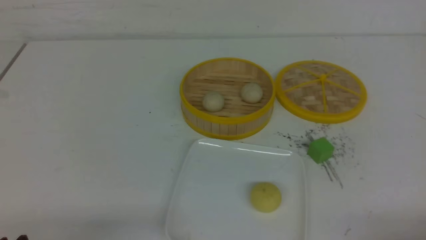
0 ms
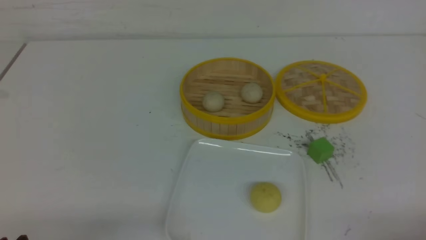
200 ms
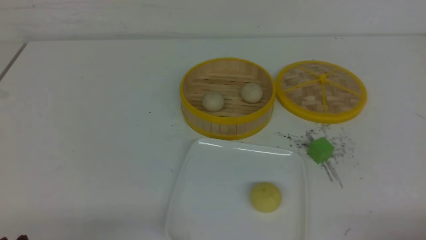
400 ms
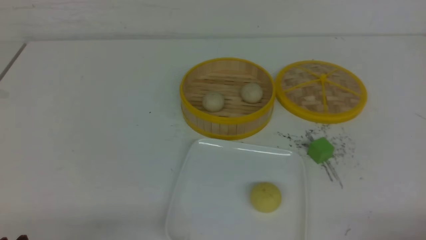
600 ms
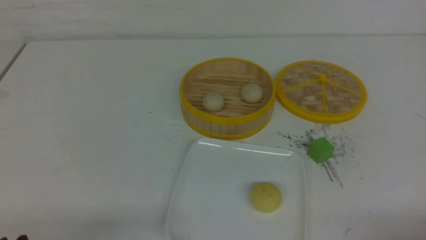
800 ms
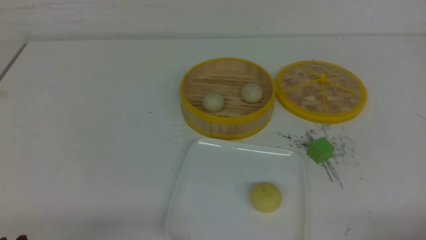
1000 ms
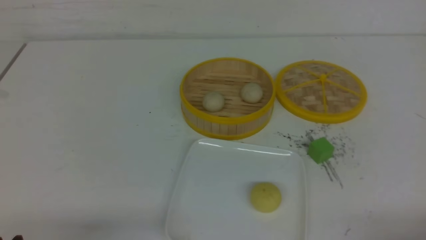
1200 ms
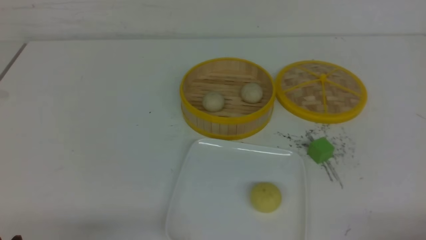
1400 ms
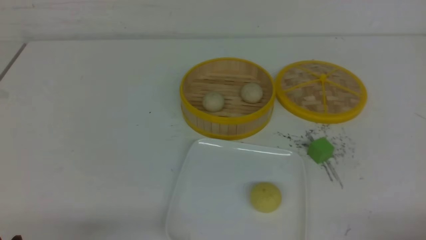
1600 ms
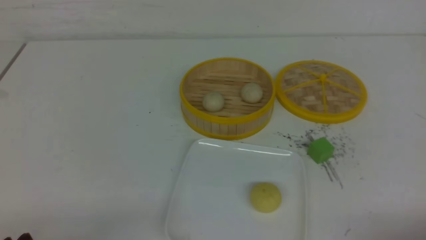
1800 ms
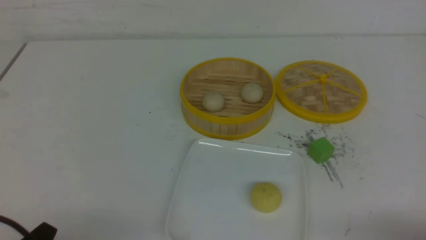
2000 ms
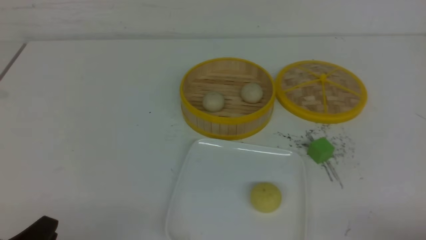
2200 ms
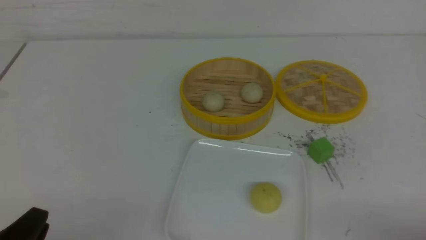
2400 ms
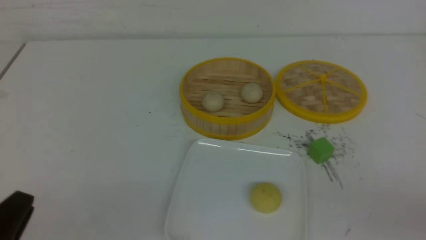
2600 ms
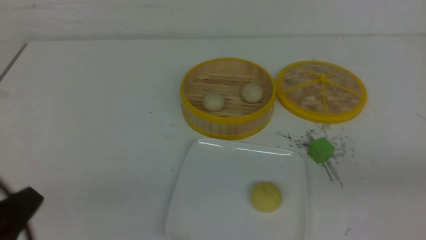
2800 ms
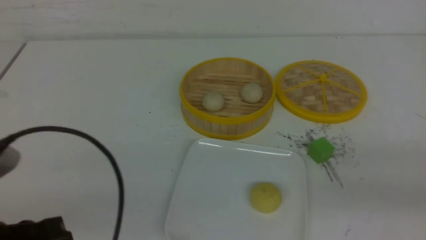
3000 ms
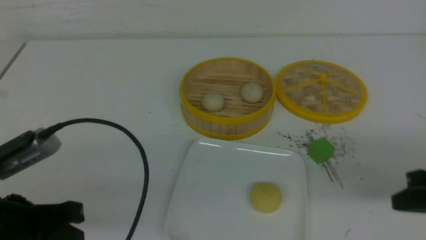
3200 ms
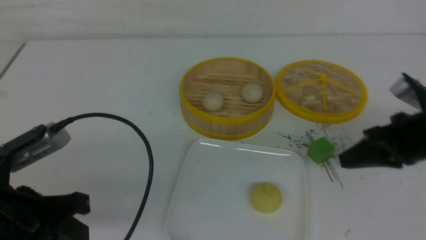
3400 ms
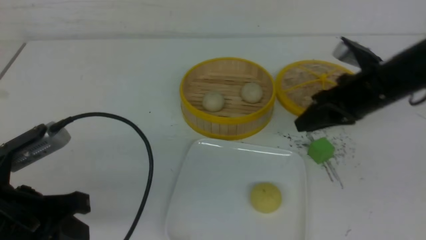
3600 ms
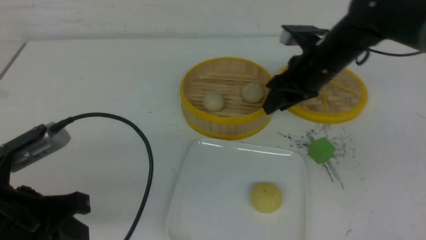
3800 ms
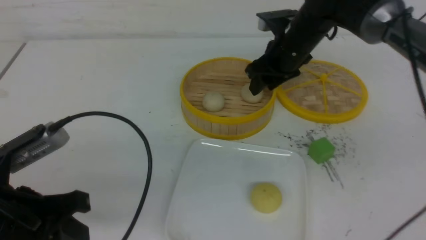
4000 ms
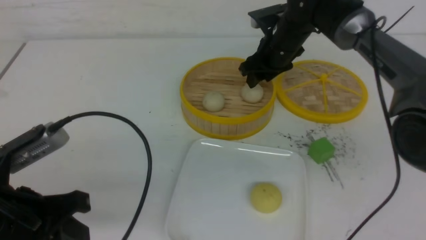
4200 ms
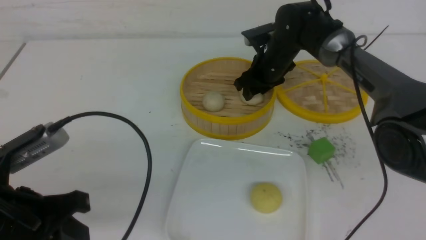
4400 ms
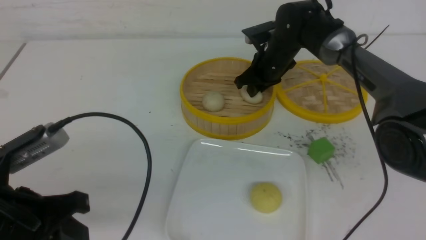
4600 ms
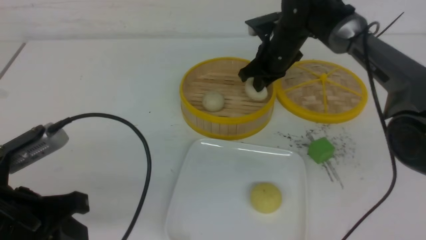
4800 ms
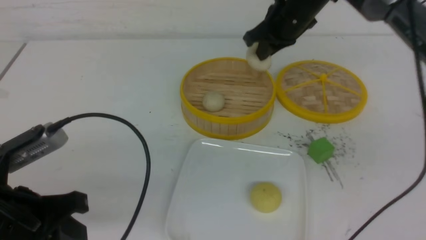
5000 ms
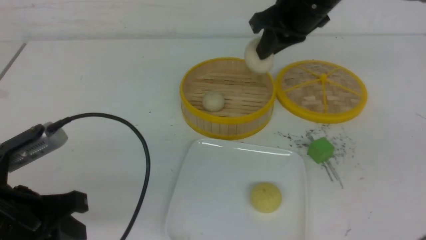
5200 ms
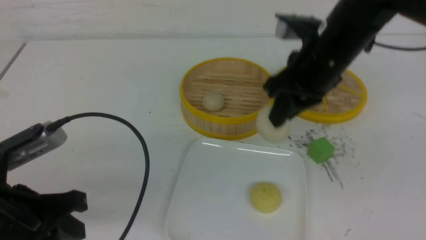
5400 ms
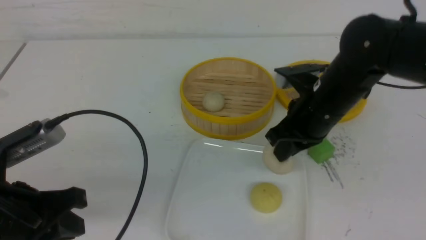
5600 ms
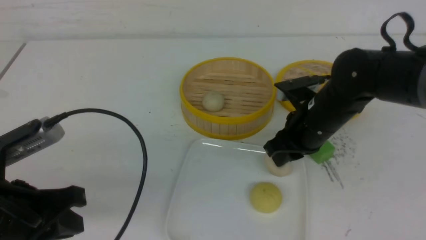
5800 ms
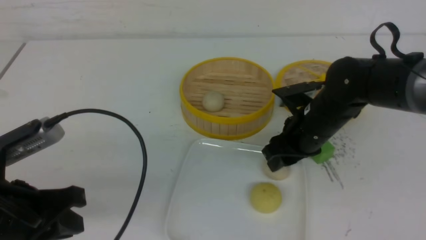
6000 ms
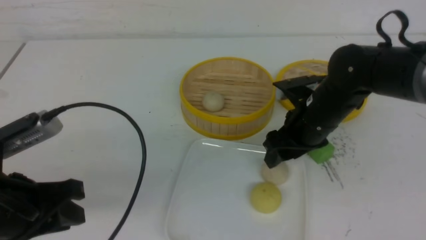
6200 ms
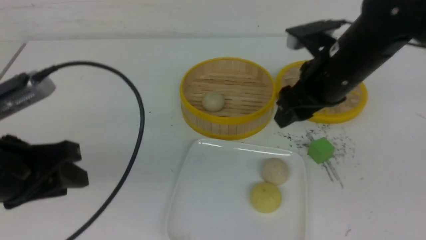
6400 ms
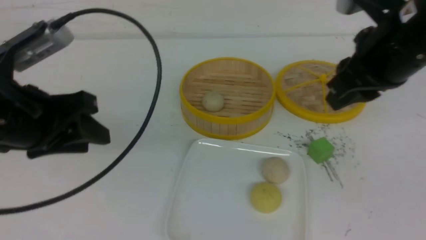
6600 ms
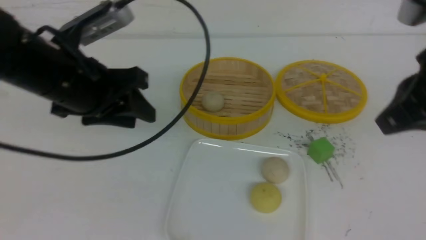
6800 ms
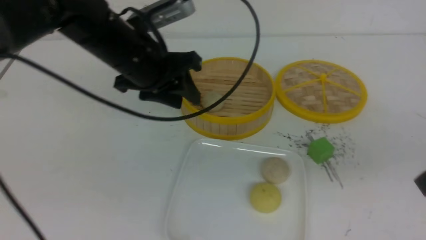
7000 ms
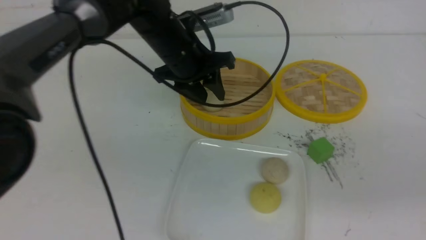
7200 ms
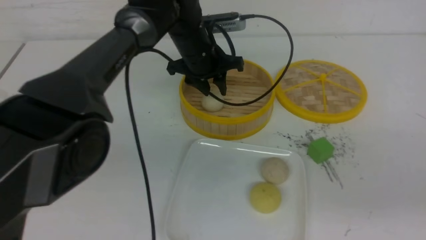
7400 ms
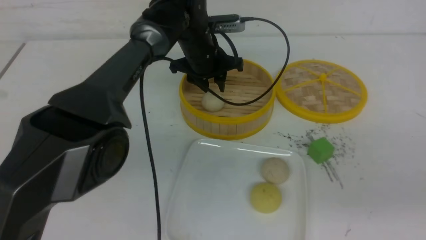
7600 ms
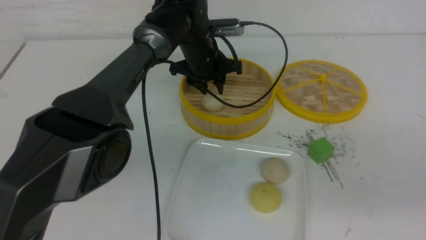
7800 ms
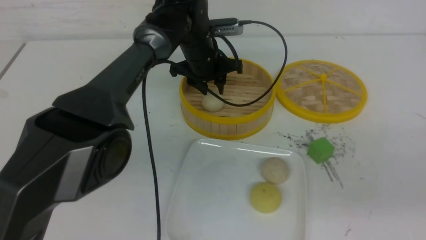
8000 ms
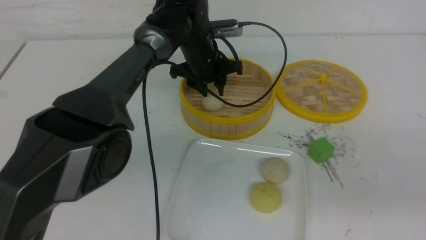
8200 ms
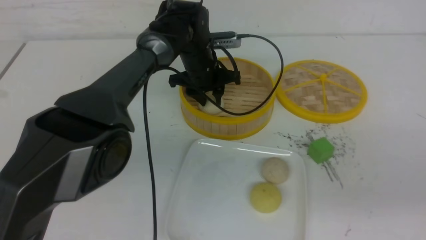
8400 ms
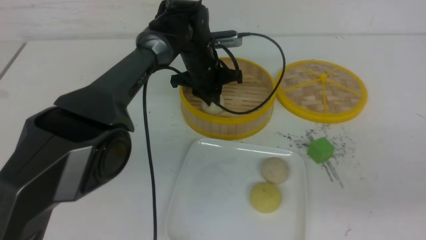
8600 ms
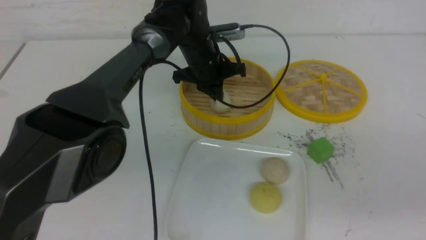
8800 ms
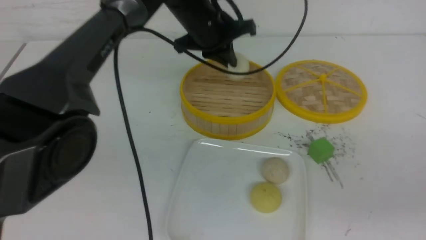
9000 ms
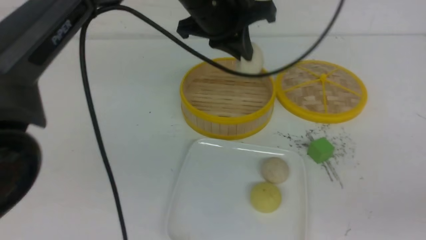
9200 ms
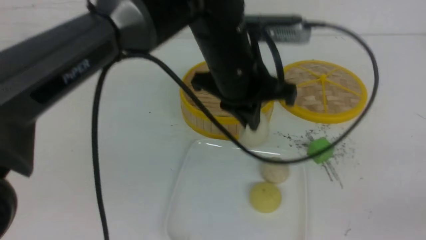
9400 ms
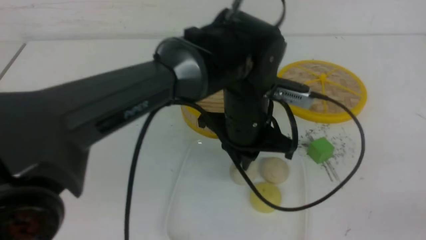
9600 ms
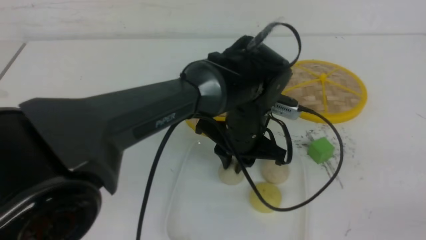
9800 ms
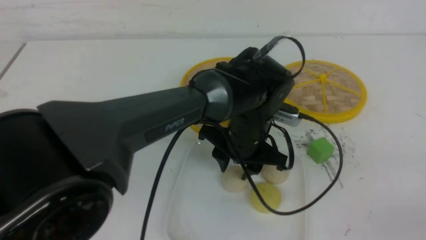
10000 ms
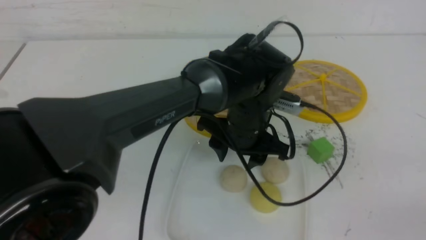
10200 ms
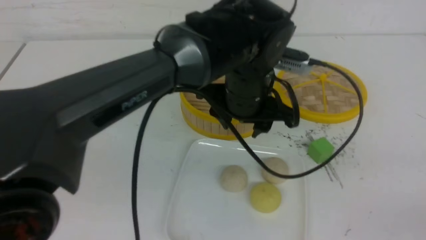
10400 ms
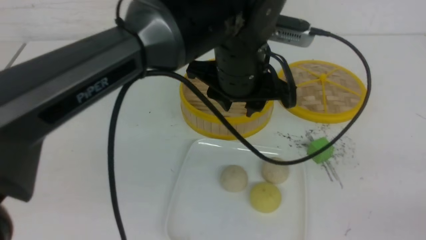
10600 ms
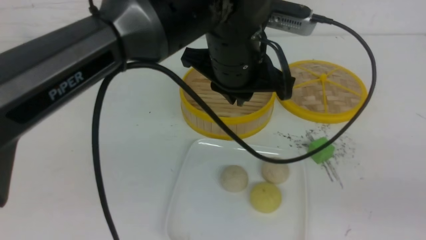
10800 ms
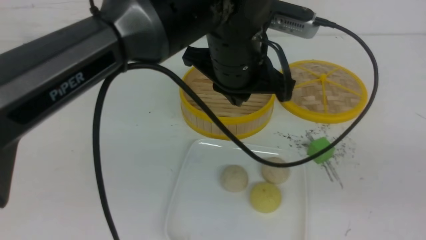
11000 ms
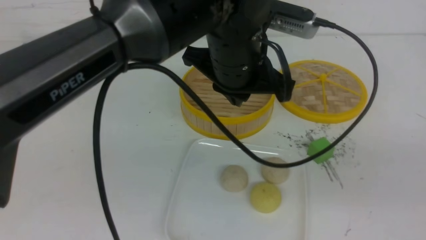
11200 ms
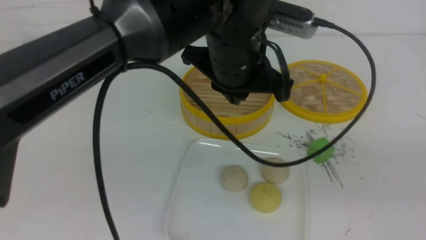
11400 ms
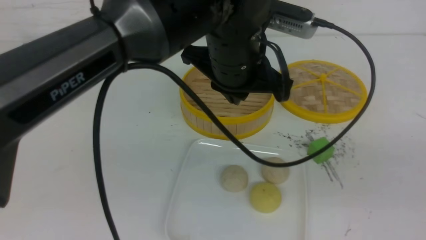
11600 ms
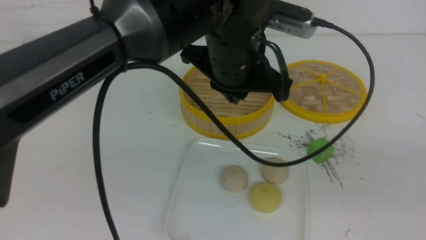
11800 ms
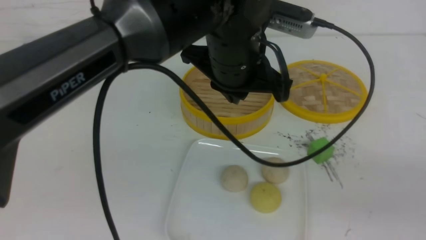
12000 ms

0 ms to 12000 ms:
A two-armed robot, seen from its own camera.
Step, 0 ms to 4600 ms: use the right arm to grab the steamed stuffed bun that is closest to it.
Step, 4800 ms to 6200 ms: use the right arm to put the steamed stuffed bun into the plate.
Step, 6400 ms to 8800 ms: use the left arm to grab the steamed stuffed bun that is closest to it.
Step, 9000 ms to 10000 ms: use the left arm to put the steamed stuffed bun into the plate.
0 ms to 1600 ms: Both grippers stay put.
1600 ms to 3000 ms: The right gripper shifts some 15 cm upward and forward, and closes; the left gripper moves upward, roughly 10 cm, and closes.
3000 ms to 4400 ms: The right gripper moves forward and to the left, roughly 40 cm, and opens up; the left gripper ends up some 5 cm from where it was.
4400 ms to 6000 ms: The right gripper heads backward, covering some 15 cm, and closes, then reopens.
6000 ms to 7600 ms: The right gripper travels backward, to the right and upward by about 30 cm, and closes its fingers. The left gripper shifts some 40 cm forward and to the right, and opens.
7600 ms to 9000 ms: The left gripper is displaced upward and backward by some 10 cm, and closes up.
9000 ms to 10400 ms: The right gripper goes some 5 cm backward; the left gripper goes some 15 cm backward and to the right, travels downward and back again, approximately 10 cm each way, and opens up.
10400 ms to 12000 ms: The left gripper moves upward, about 5 cm, and closes its fingers. The right gripper moves downward, roughly 10 cm.

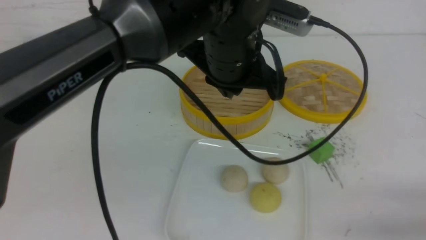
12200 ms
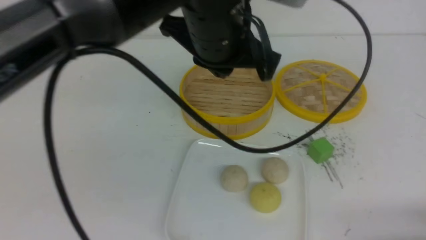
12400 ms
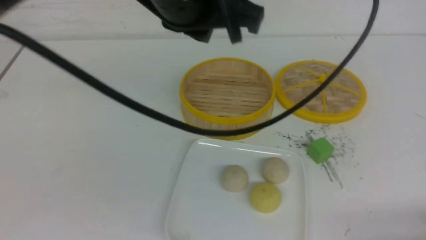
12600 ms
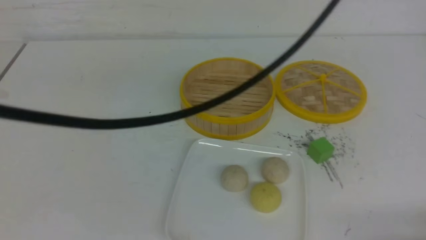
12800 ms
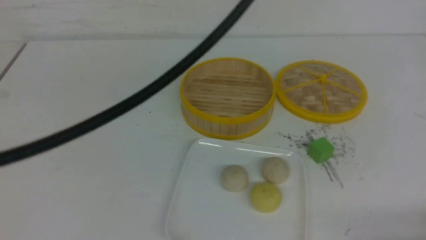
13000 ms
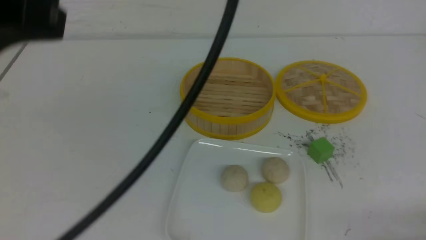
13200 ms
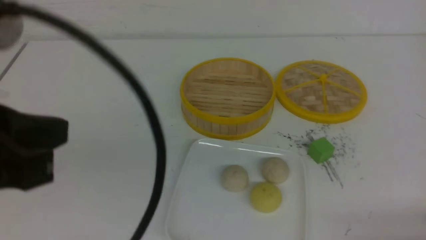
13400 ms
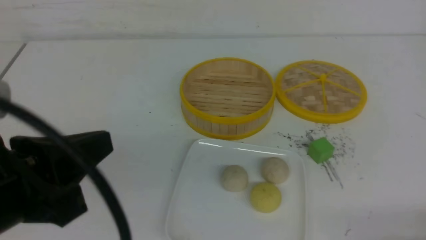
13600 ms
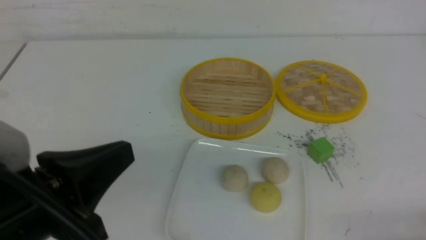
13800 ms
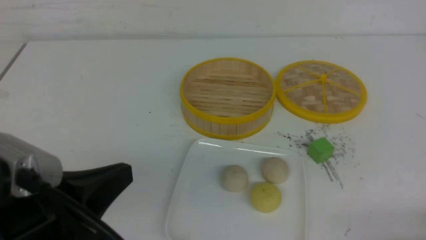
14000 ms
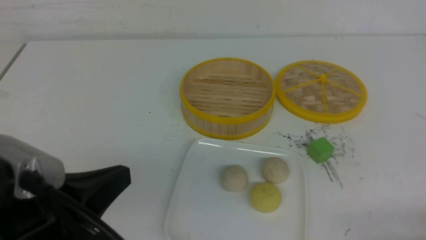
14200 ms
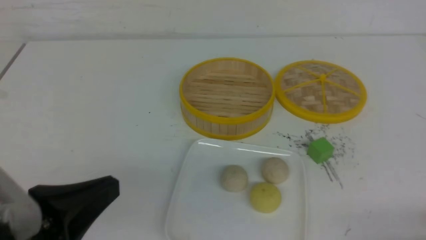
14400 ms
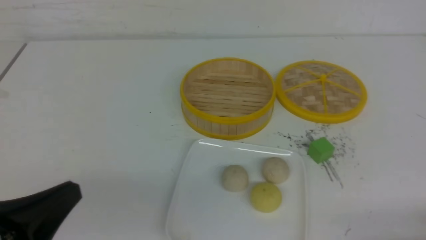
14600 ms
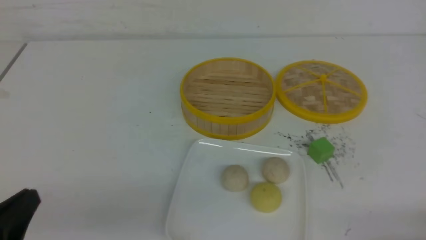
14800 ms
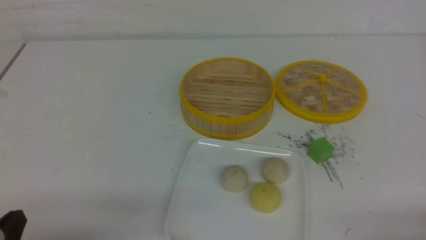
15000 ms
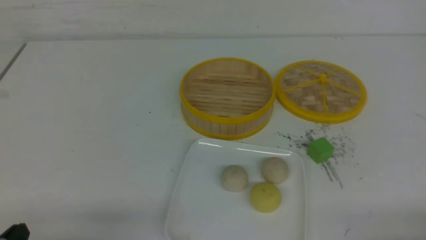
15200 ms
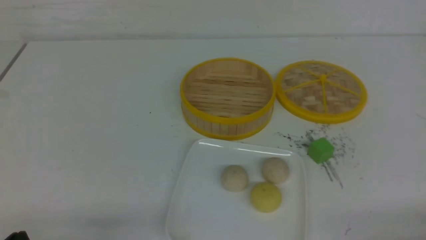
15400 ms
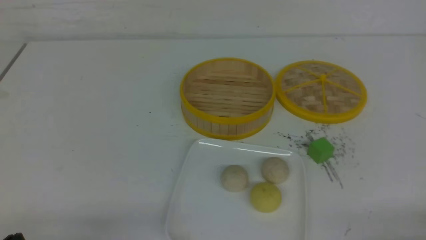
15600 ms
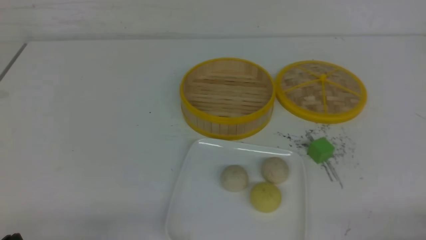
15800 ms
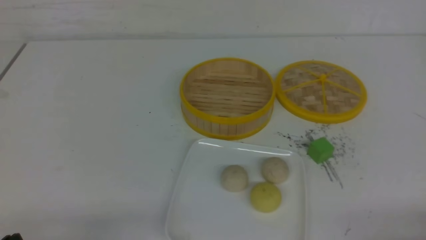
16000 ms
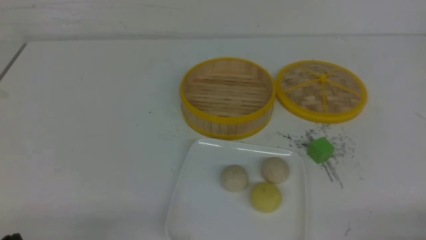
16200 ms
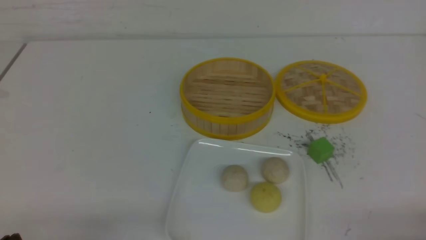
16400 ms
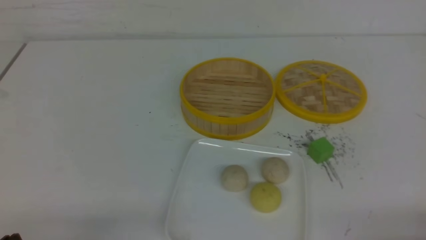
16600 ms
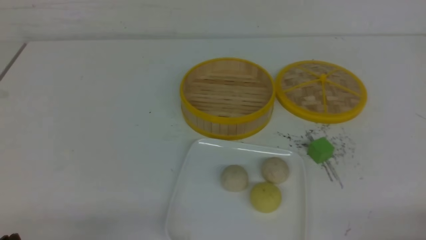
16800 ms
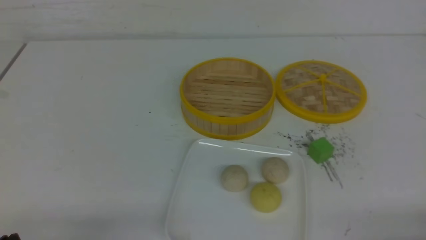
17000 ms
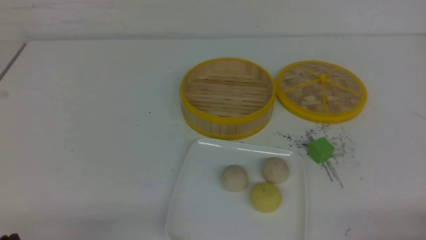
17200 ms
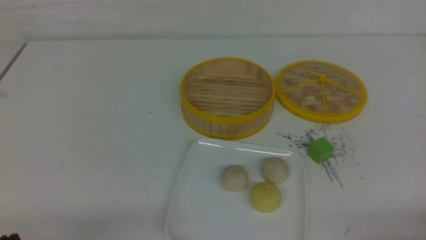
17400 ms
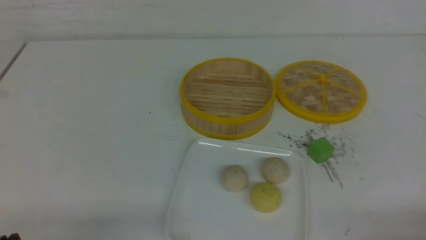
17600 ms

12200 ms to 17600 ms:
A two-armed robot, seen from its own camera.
12200 ms to 13600 ms: The left gripper moves to the left and backward, about 25 cm.
13600 ms to 15000 ms: The left gripper moves downward and to the left, approximately 15 cm.
16200 ms to 17600 ms: Both grippers stay put.
